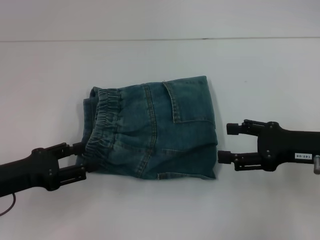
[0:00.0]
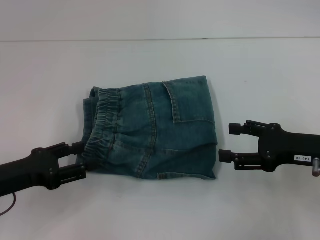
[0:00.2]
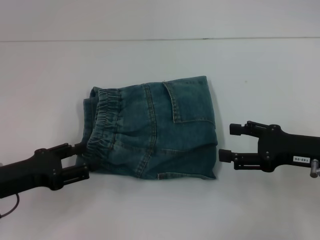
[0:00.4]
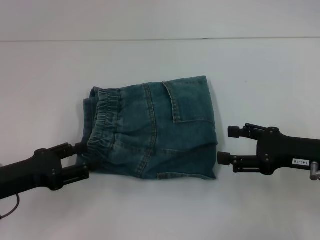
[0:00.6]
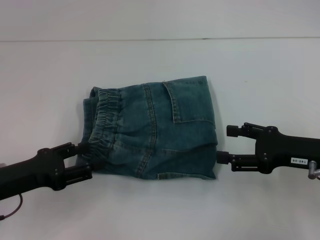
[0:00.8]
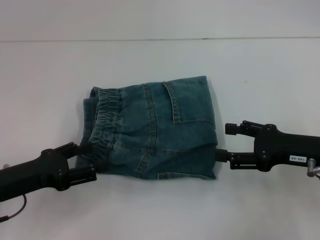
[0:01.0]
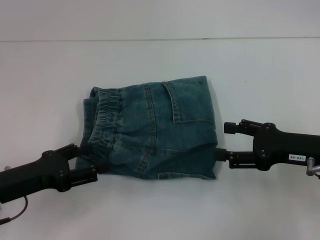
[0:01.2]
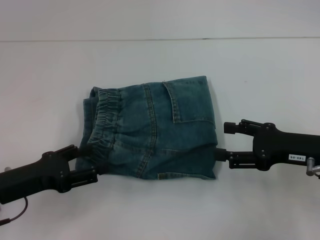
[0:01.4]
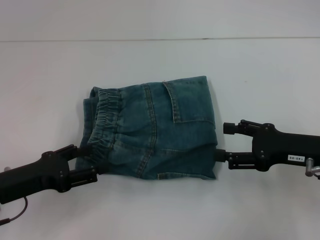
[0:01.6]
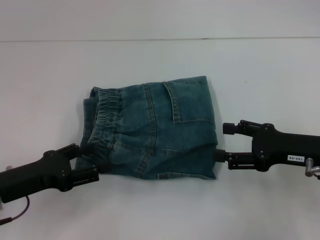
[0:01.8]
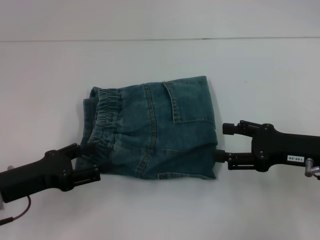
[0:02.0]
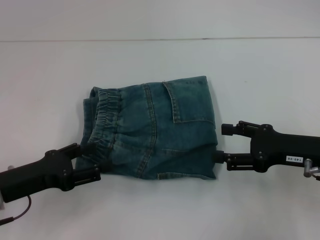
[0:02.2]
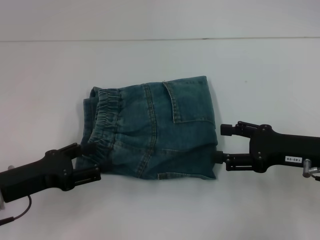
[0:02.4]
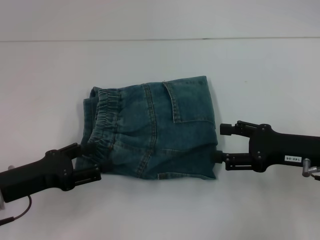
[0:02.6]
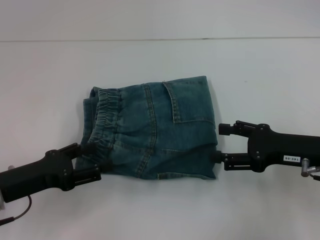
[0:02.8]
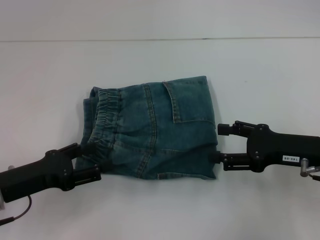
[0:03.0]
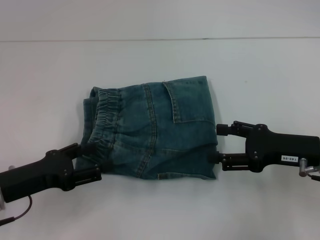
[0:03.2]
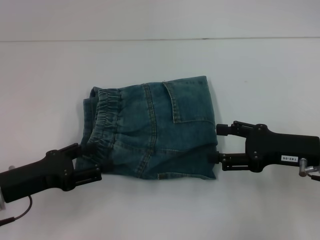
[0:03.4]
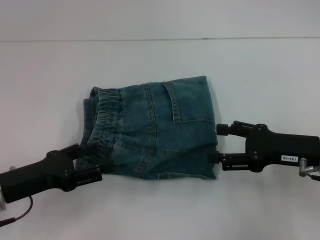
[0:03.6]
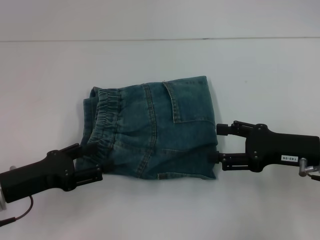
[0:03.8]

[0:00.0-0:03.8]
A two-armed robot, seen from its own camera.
0:00.0 to 0:01.2: There are only small adjustments of the grippers.
0:01.2 to 0:03.8: Both grippers stay put.

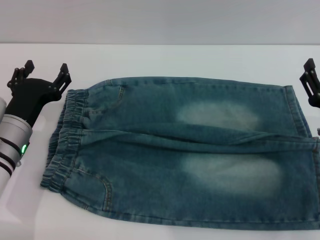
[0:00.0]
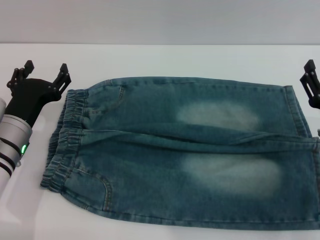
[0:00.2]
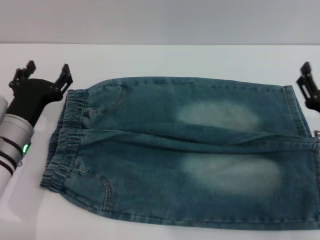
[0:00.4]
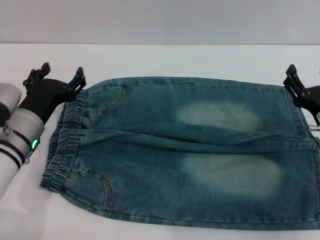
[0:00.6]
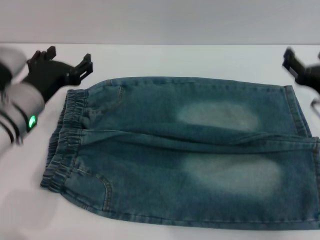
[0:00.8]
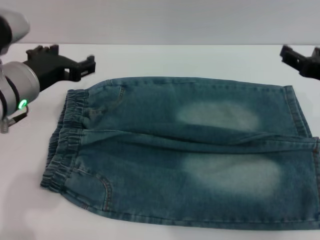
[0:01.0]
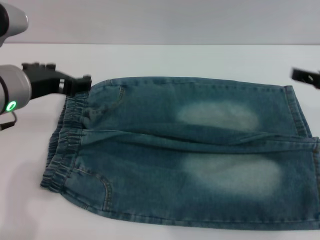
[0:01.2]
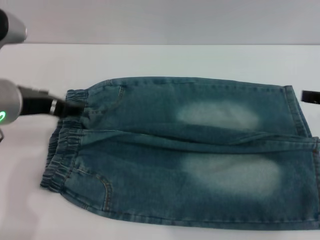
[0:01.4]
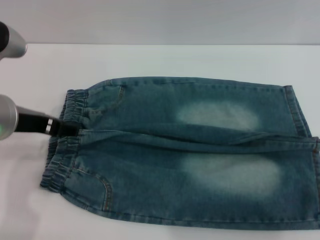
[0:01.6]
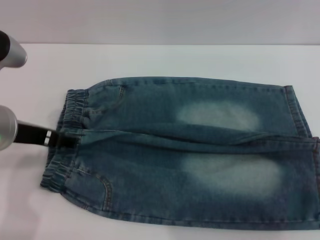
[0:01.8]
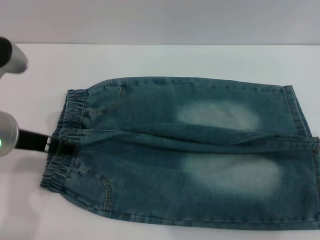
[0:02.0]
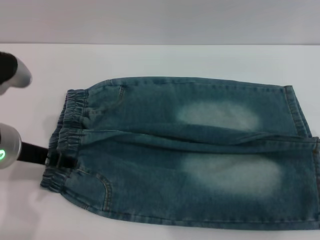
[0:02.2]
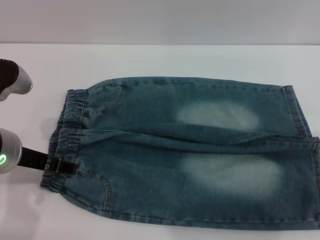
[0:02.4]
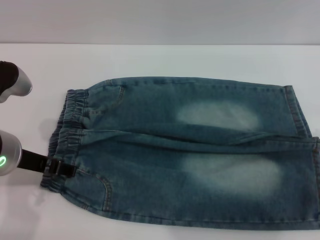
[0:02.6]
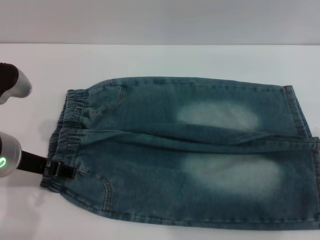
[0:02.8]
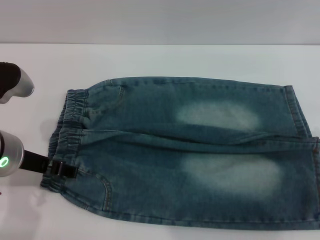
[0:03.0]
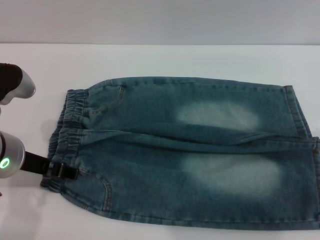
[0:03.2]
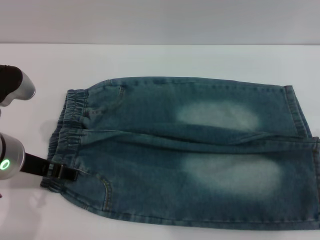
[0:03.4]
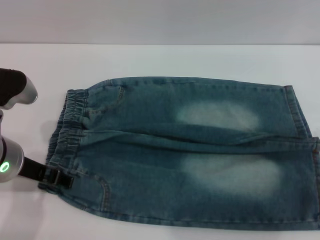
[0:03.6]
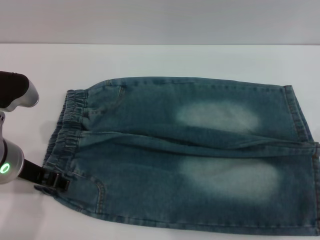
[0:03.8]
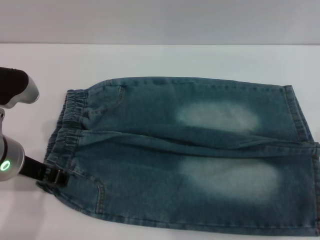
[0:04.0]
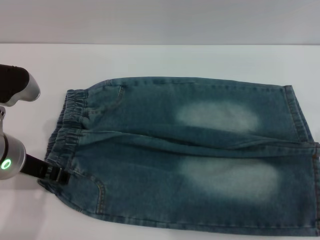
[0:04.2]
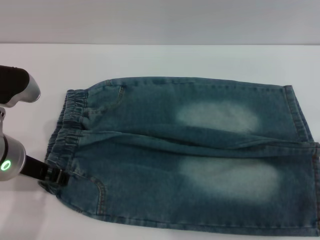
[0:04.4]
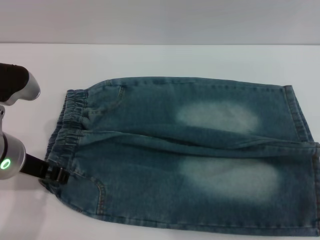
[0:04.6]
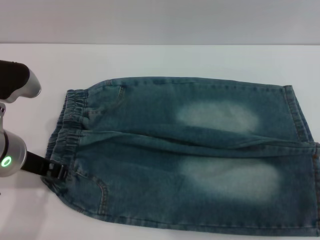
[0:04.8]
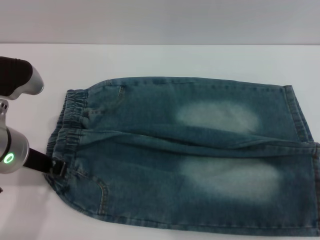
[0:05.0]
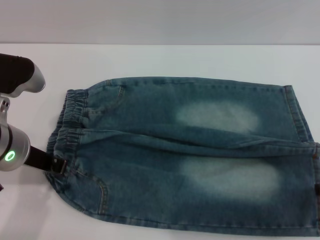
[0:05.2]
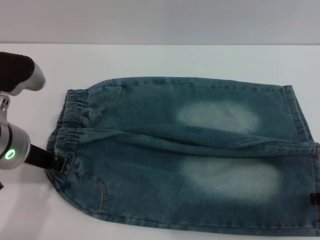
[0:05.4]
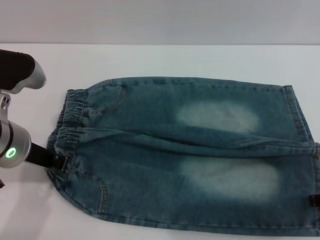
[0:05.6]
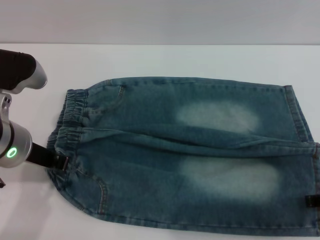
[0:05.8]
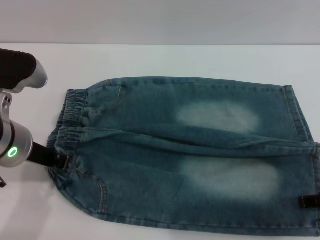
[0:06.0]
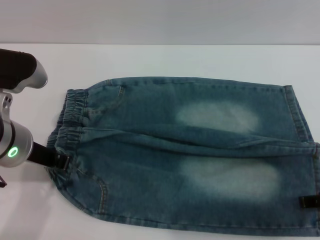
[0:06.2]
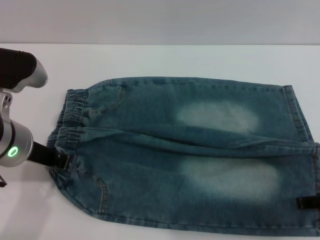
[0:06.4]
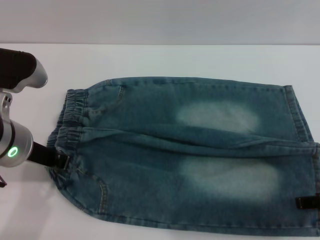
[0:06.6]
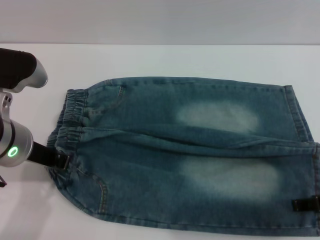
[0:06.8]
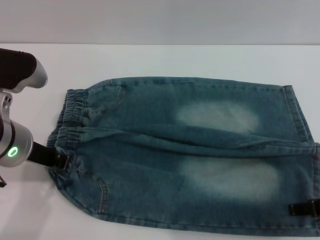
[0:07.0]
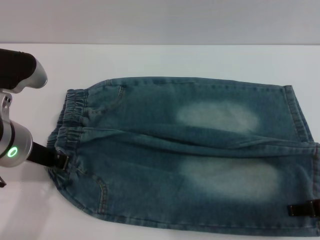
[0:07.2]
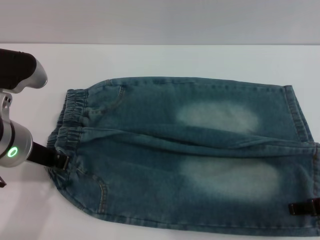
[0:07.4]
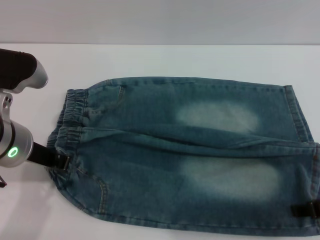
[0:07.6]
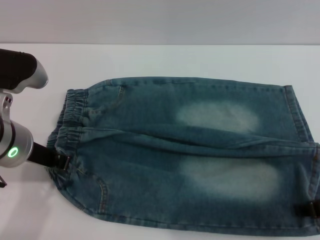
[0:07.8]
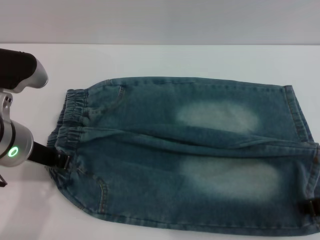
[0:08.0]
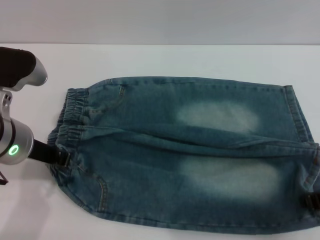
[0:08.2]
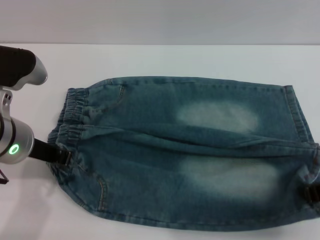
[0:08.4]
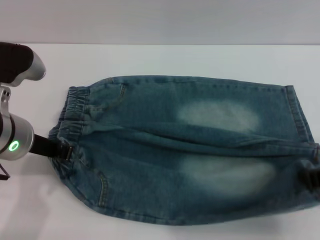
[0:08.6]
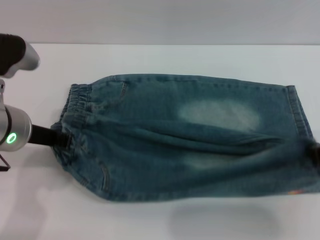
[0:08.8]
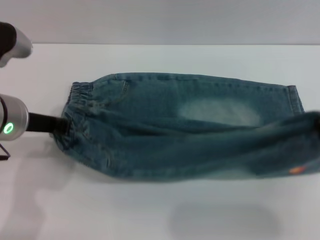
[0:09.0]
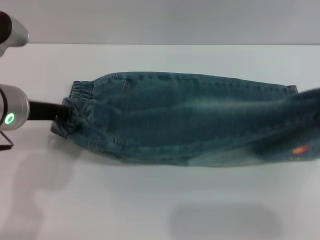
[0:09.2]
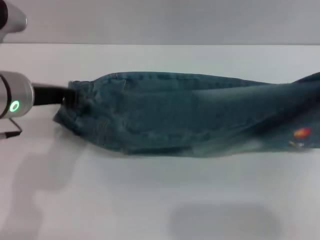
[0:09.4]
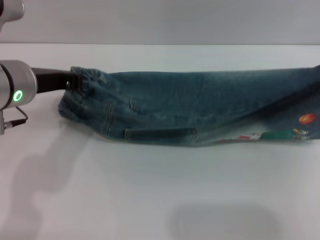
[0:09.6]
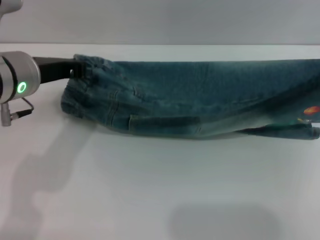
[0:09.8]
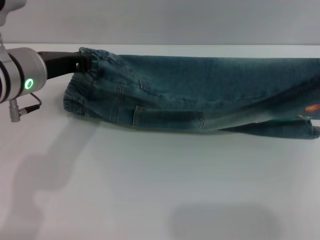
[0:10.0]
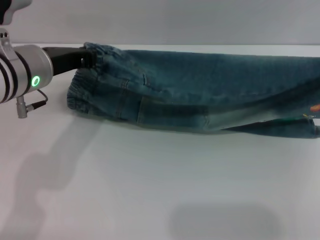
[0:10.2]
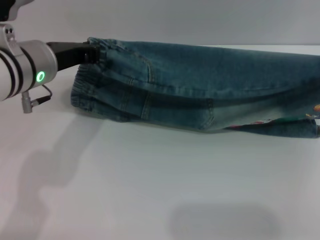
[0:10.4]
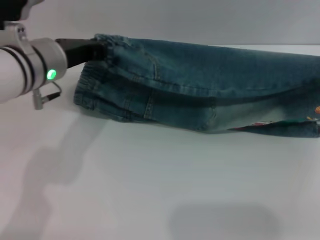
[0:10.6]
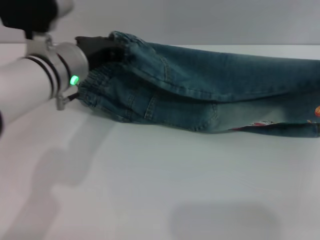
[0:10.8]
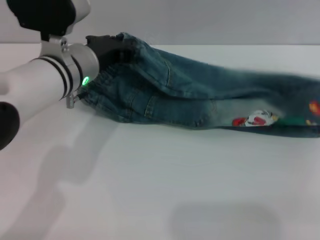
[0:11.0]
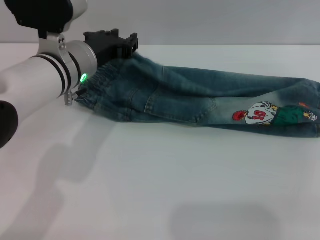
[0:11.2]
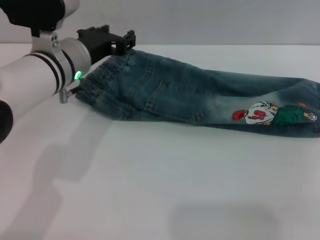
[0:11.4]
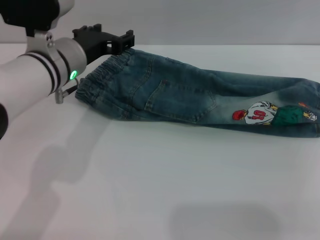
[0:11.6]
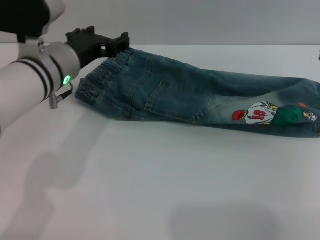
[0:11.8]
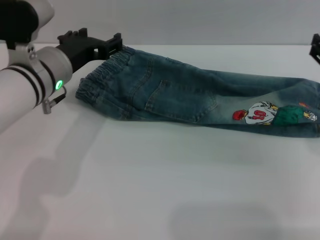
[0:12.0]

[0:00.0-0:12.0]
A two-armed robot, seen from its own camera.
0:00.0 to 0:01.6: Both grippers travel together upward, about 15 cm.
0:01.6 to 0:03.0: The grippers make only small movements.
0:03.0 to 0:04.4: The grippers stay close to where they were, moving slightly.
0:04.4 to 0:06.0: The left gripper closes its fingers.
0:07.6 to 0:09.0: The right gripper is displaced upward by about 5 cm, and closes its fingers.
0:09.0 to 0:10.4: The left gripper ends up roughly 5 cm from where it was; the right gripper shifts by roughly 5 cm.
0:10.4 to 0:12.0: The right gripper is displaced downward by roughly 5 cm, and opens. The left gripper opens its fingers.

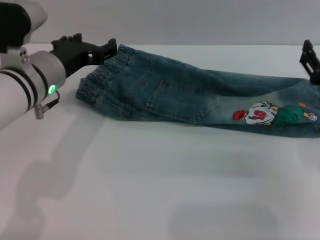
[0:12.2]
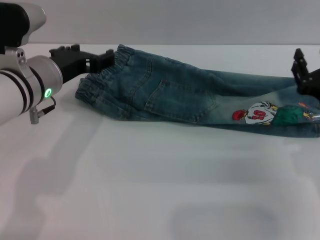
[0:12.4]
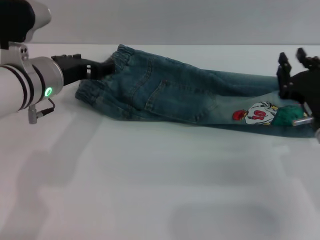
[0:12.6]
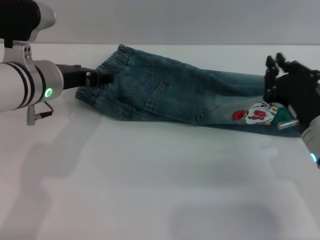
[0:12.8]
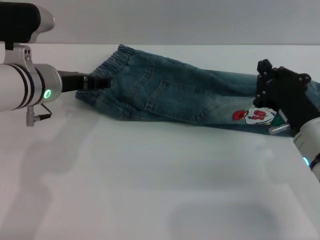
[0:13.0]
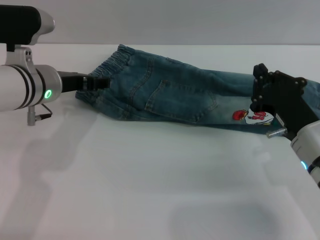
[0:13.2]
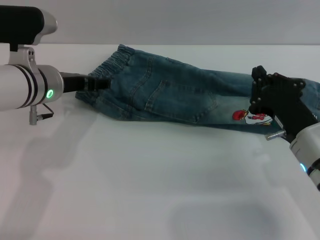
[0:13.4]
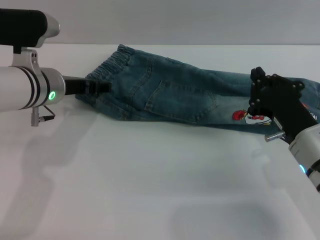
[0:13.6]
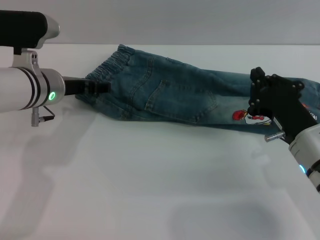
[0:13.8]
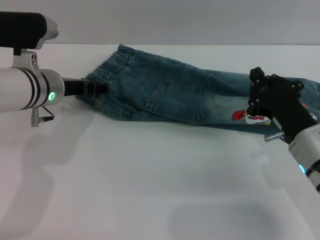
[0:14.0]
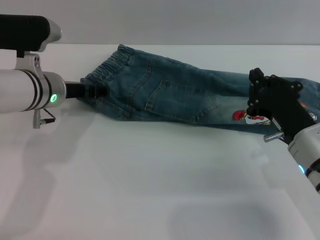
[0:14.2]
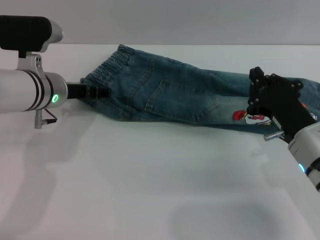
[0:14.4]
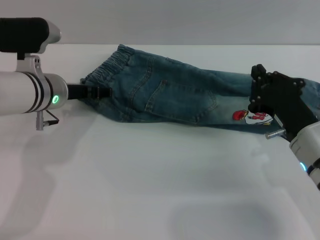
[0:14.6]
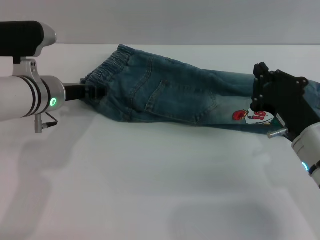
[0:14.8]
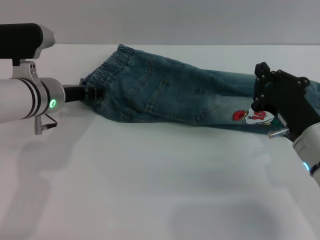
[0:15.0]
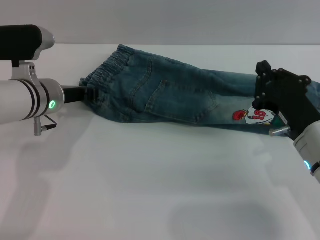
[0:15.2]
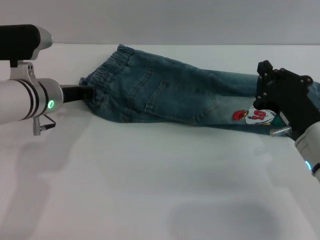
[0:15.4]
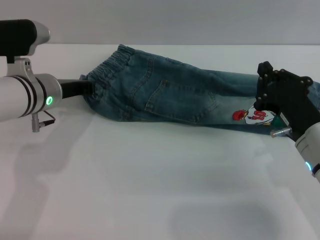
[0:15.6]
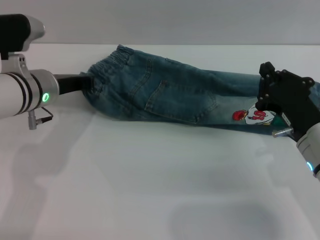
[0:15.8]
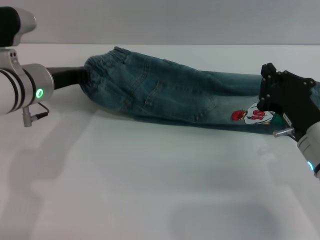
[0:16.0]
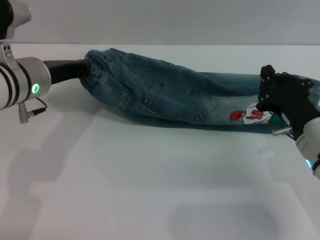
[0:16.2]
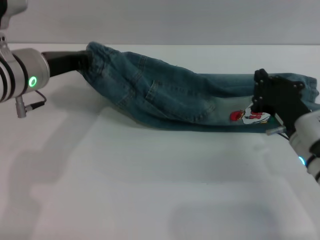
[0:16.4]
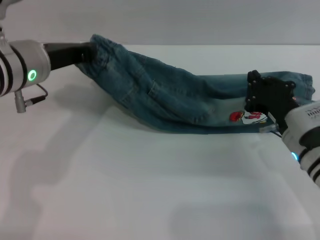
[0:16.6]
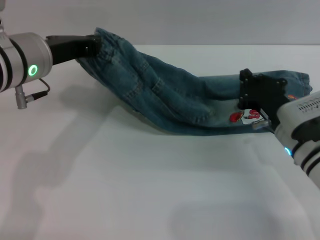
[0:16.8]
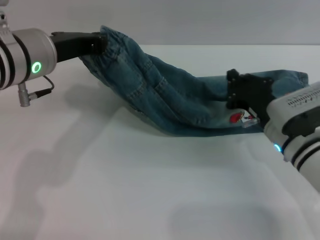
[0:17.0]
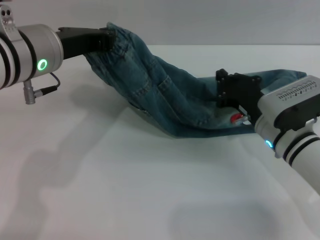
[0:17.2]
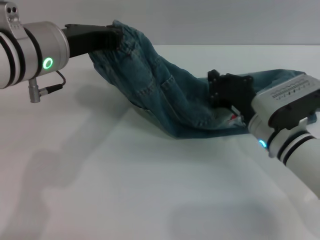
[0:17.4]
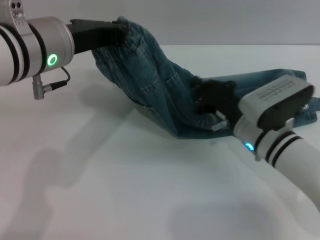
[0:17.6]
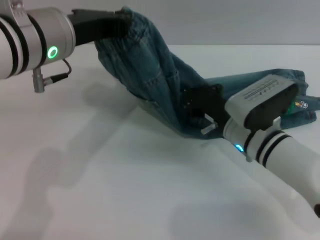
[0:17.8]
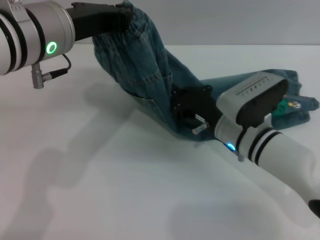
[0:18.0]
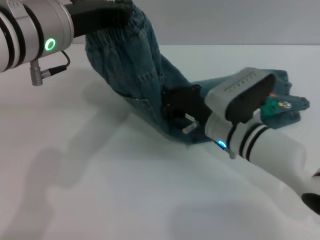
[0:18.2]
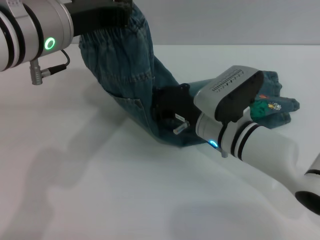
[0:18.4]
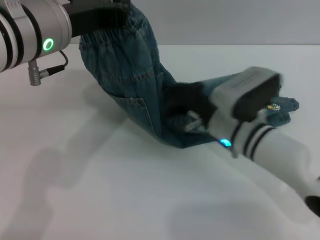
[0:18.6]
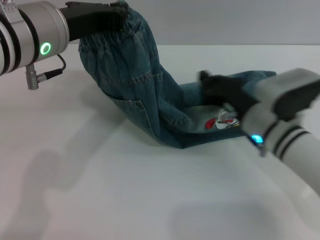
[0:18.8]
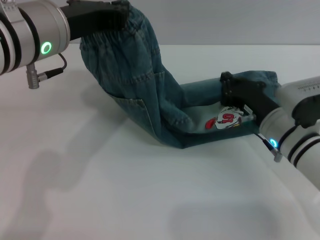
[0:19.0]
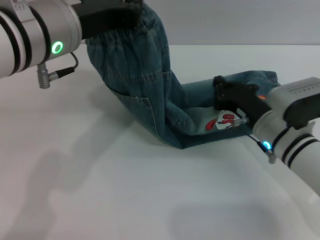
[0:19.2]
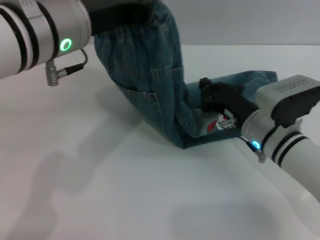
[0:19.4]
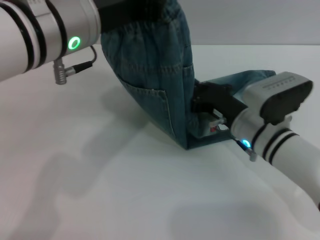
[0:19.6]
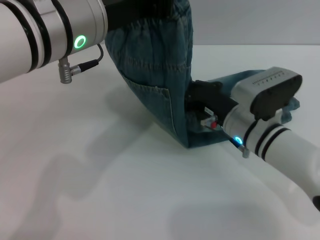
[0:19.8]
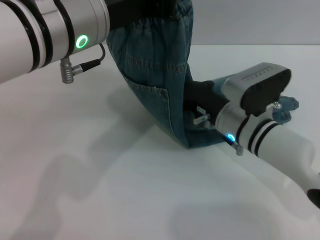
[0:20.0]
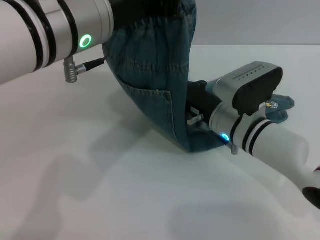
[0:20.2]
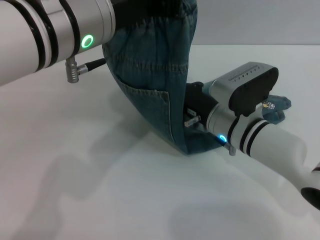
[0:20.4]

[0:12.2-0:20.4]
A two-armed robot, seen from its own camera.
0:12.2 to 0:13.8: The right gripper heads to the left, covering approximately 5 cm, and closes its fingers.
0:13.8 to 0:15.4: The left gripper closes up.
0:15.4 to 0:17.2: The left gripper heads upward, covering some 10 cm. The right gripper goes approximately 5 cm forward.
0:17.2 to 0:18.8: The right gripper goes to the left and returns, about 10 cm each way.
0:18.8 to 0:20.4: The left gripper ends up some 5 cm from where it was. Meanwhile the right gripper goes approximately 5 cm to the left.
